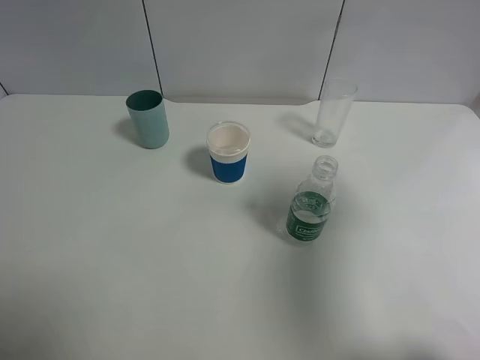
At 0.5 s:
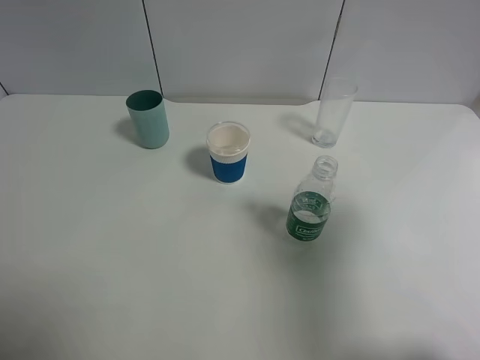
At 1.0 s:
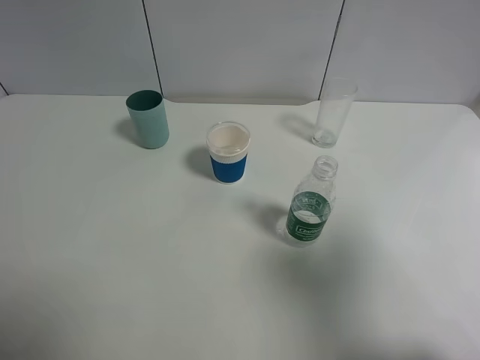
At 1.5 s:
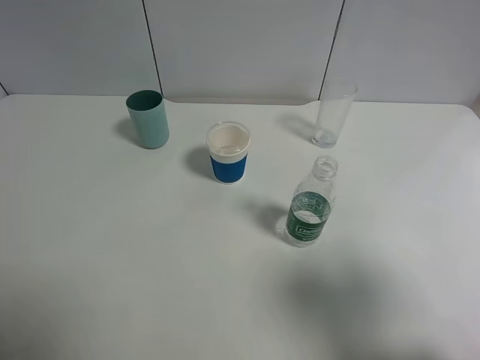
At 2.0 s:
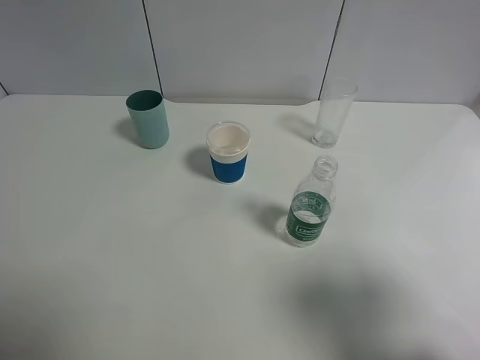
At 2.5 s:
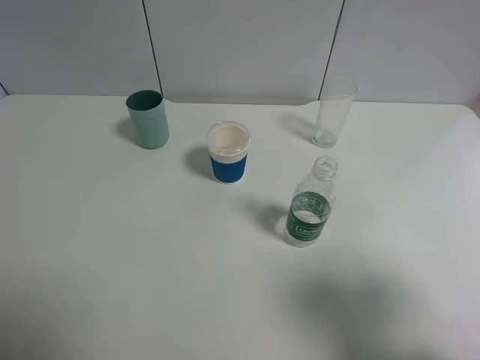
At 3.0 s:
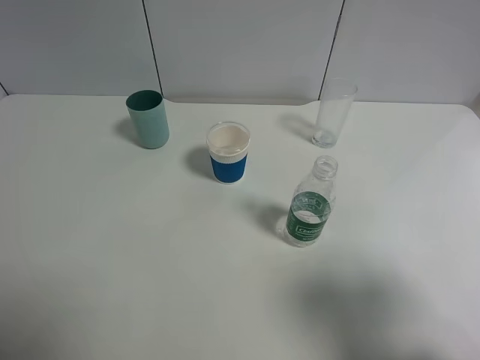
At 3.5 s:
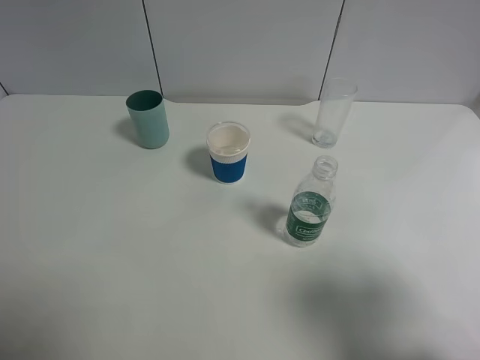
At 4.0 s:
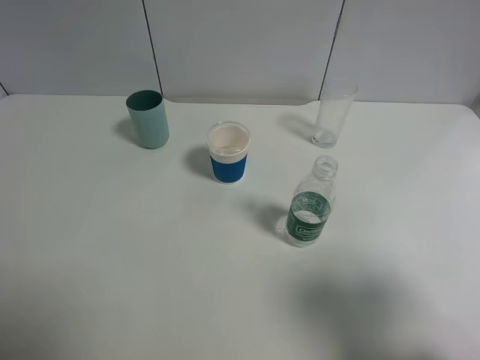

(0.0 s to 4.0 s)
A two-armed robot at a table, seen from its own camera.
Task of the whole recording: use a gripper to hold the bottle of the drink and pour it into a random cup.
0.0 s - 2.0 s: The right gripper moves backward and downward, about 15 cm.
2.0 s - 4.0 s: The two grippers keep their place.
